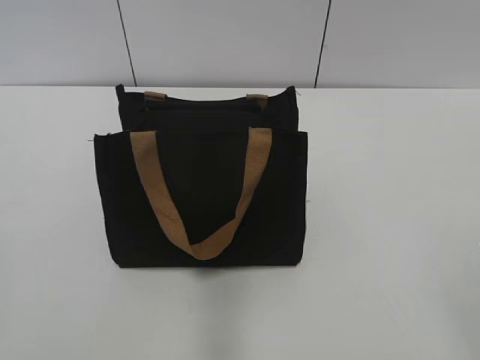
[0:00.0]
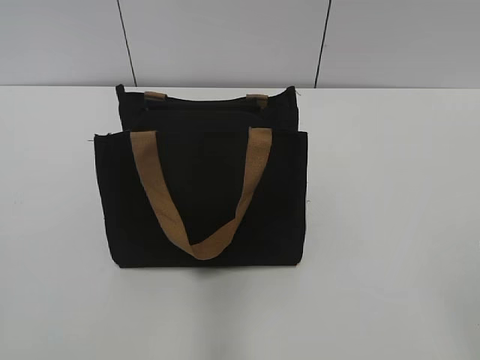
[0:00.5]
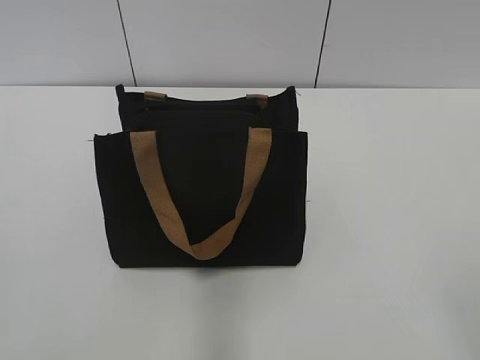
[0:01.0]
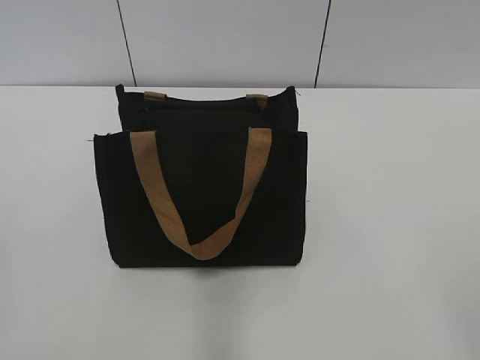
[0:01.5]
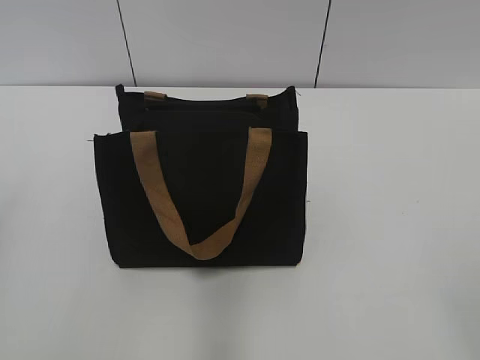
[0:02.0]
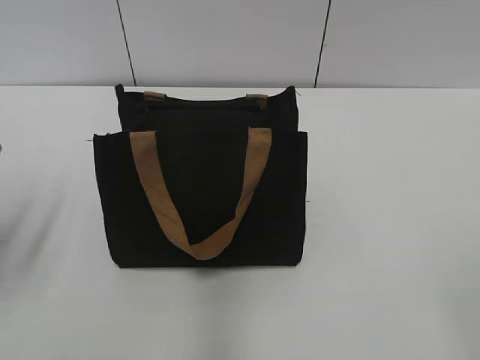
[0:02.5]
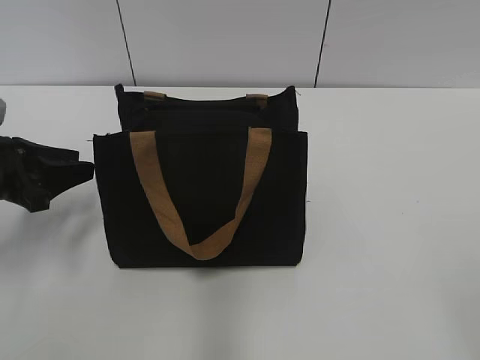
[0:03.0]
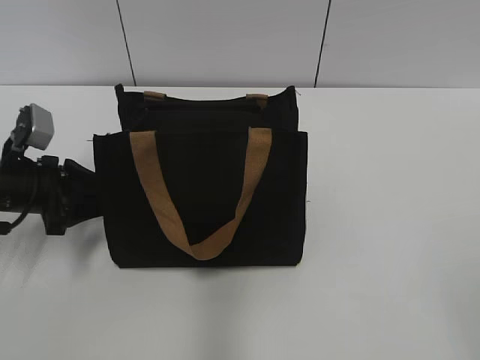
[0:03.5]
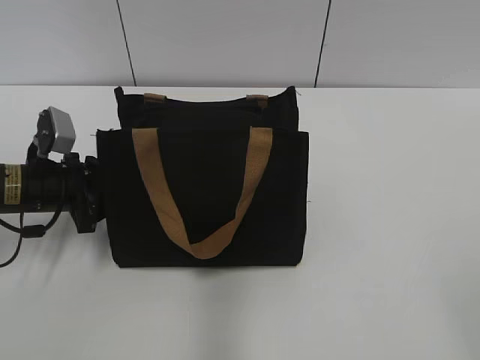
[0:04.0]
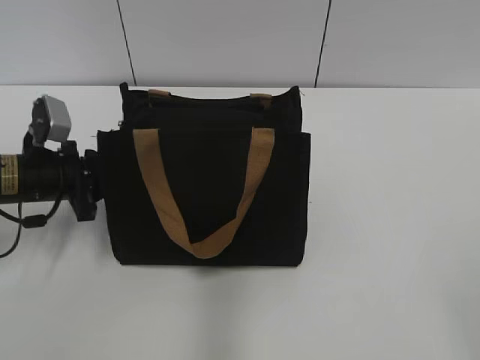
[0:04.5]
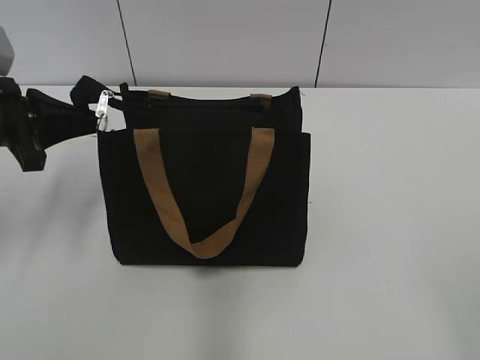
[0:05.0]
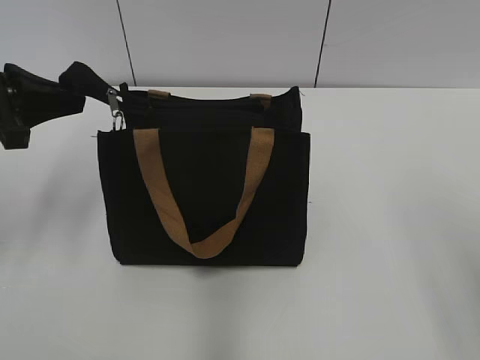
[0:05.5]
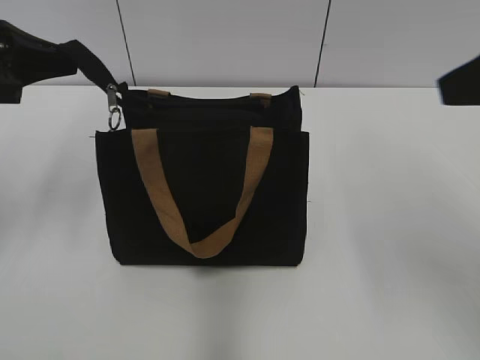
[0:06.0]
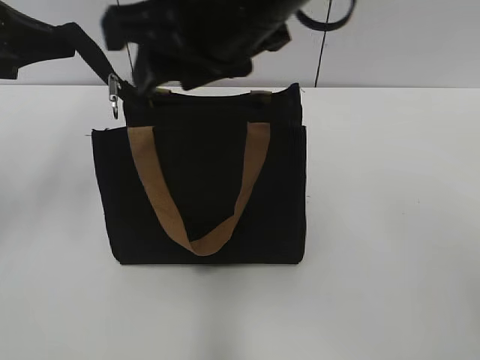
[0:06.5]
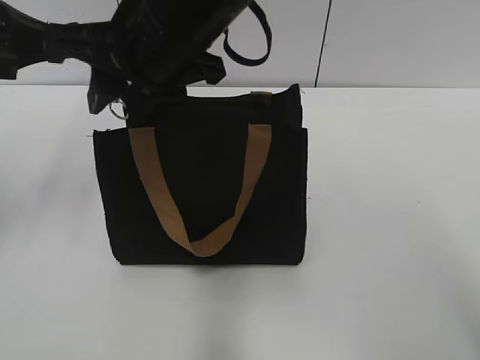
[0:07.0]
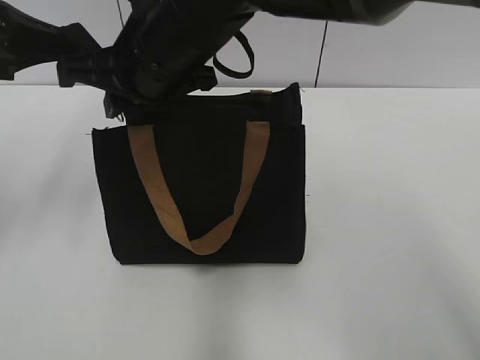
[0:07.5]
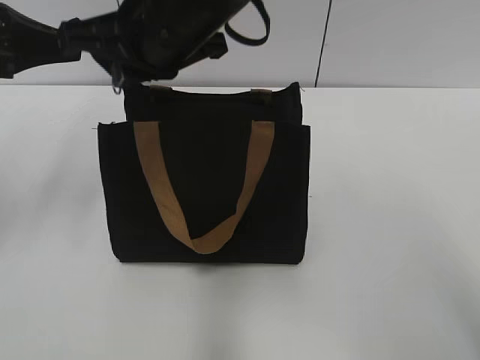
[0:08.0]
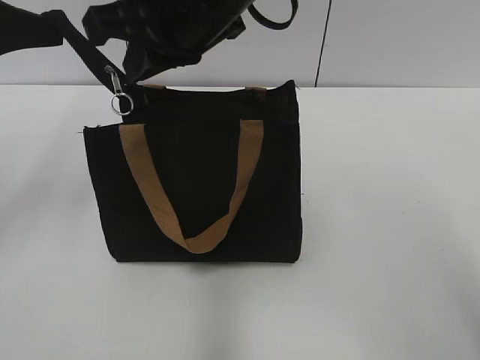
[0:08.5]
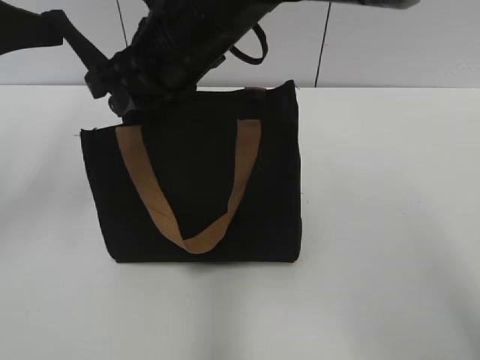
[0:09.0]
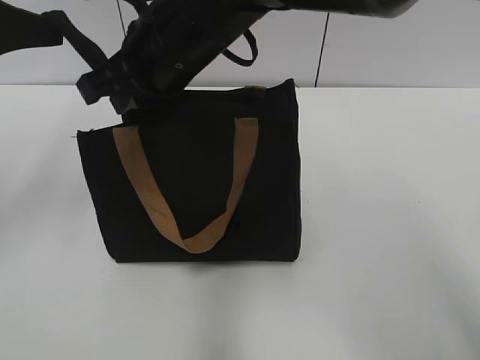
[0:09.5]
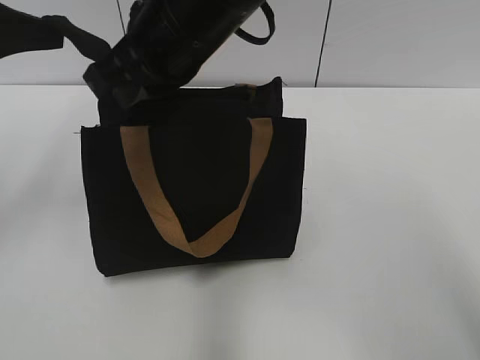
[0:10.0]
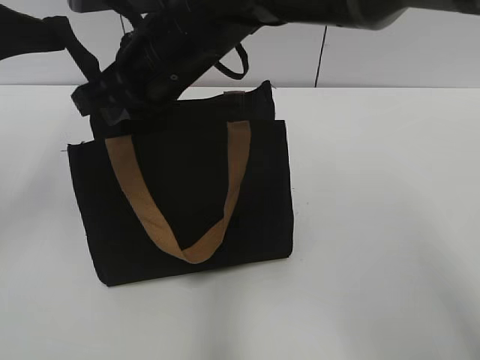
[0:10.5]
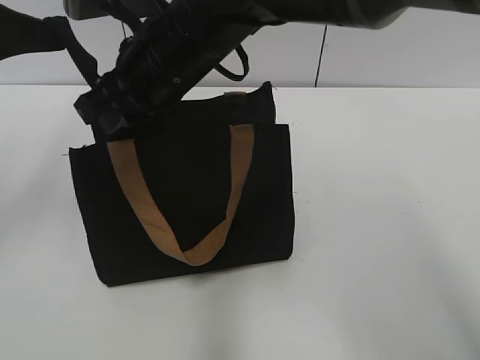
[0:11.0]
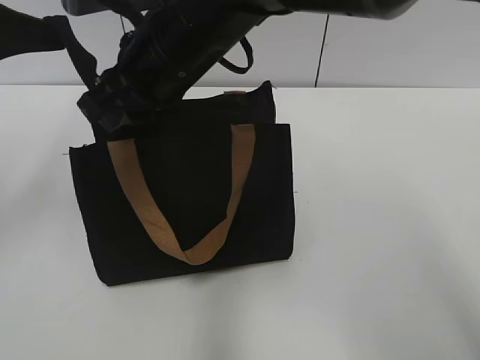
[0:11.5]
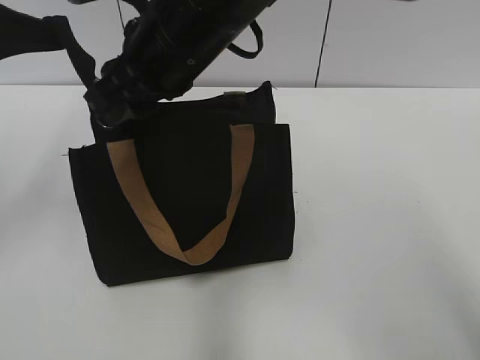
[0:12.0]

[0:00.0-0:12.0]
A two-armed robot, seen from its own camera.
0:02.0 to 0:04.0: The left gripper heads forward and downward, covering about 30 cm.
0:04.0 to 0:06.0: The right gripper is displaced forward and upward by some 20 cm, while the left gripper goes roughly 20 cm upward, and closes.
0:06.0 to 0:08.0: The right gripper moves to the left and forward, approximately 30 cm, and closes.
0:08.0 to 0:10.0: The right gripper opens, then closes once more.
0:10.0 to 0:12.0: The right gripper opens its fingers.

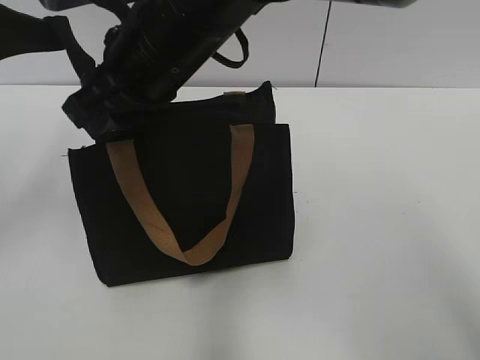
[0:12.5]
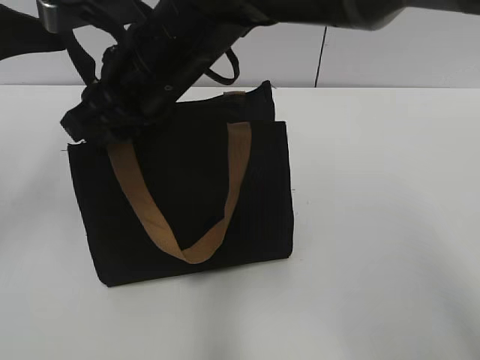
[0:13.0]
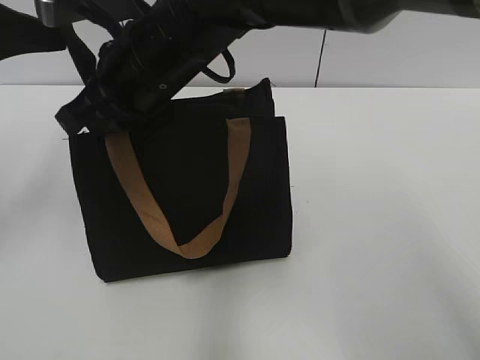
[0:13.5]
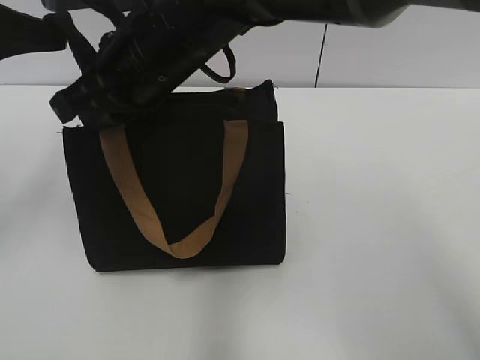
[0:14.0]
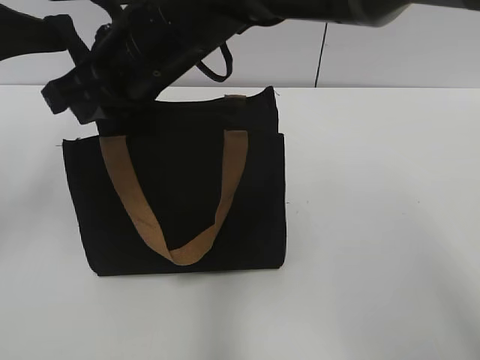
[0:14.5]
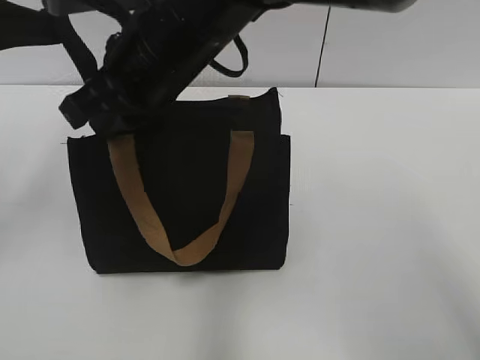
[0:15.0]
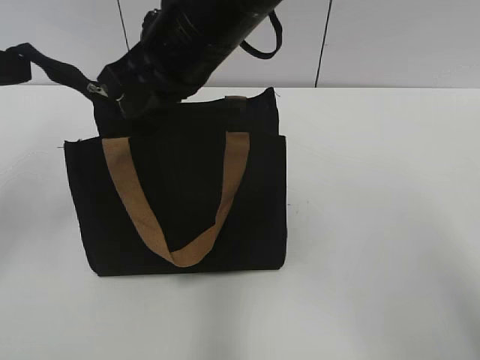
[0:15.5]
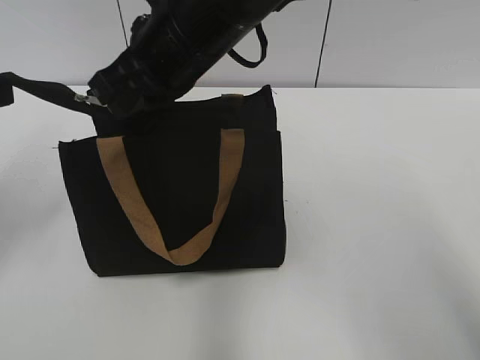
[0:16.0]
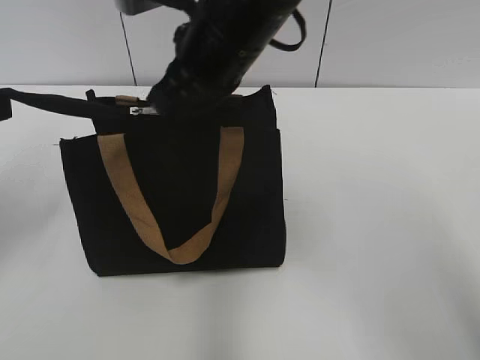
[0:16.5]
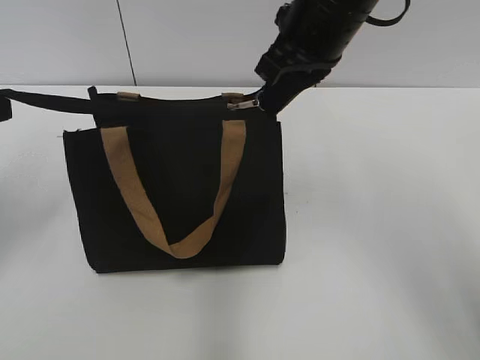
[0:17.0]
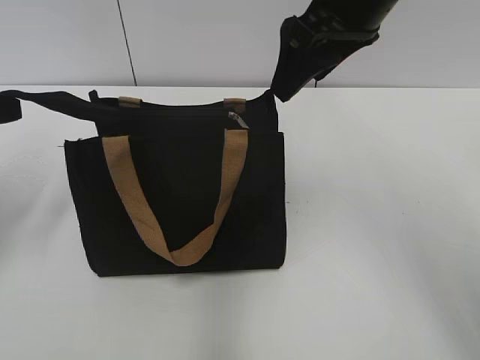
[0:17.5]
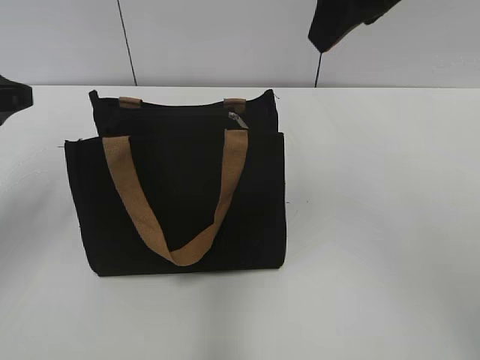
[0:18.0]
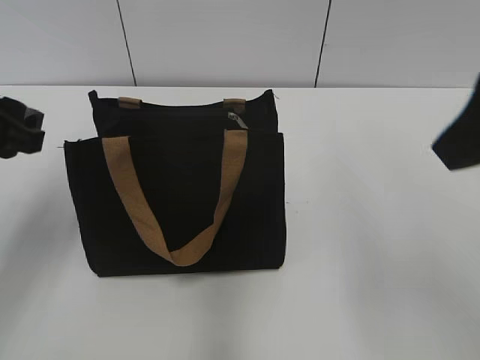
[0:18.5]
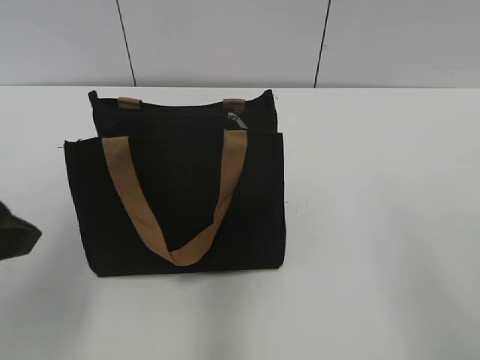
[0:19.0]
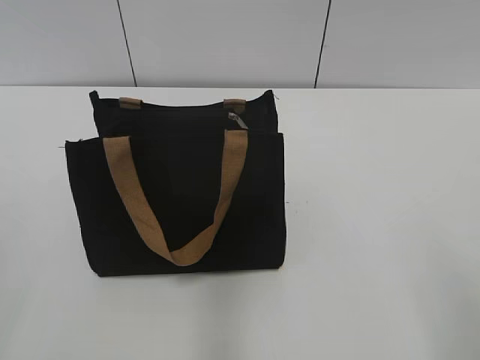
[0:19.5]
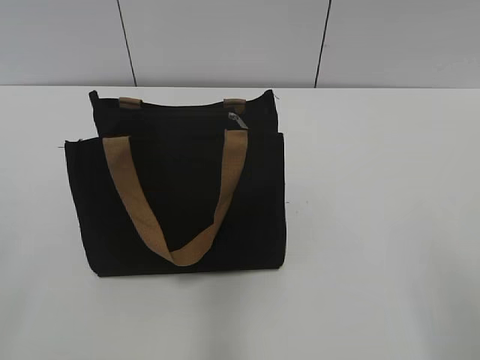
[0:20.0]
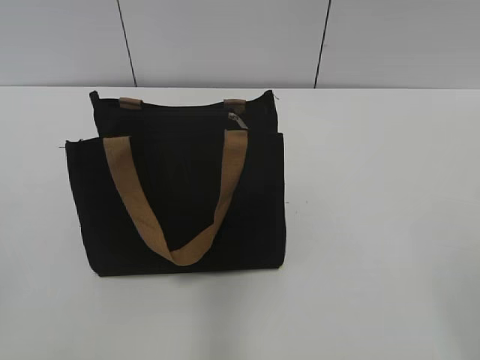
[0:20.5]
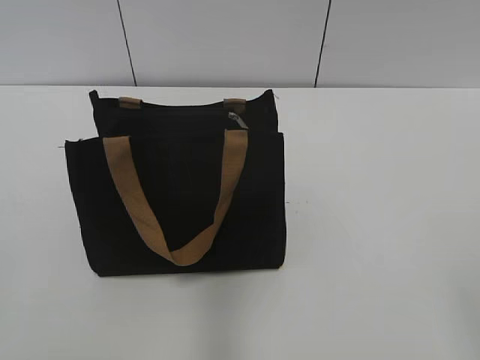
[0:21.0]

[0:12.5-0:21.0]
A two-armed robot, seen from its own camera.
Step, 0:12.5 to 0:17.0: Zip up the bag with your right hand.
0:12.5 to 0:14.5: The right gripper closes.
0:14.5 to 0:16.5: The left gripper changes place by some 10 cm. Meanwhile the right gripper travels to the right by approximately 5 cm.
0:16.5 to 0:19.0: The right gripper travels backward and to the right by roughly 35 cm, and opens up. Meanwhile the left gripper goes approximately 15 cm backward and to the right, and opens up.
0:19.0 to 0:21.0: The left gripper shifts about 20 cm backward and to the left.

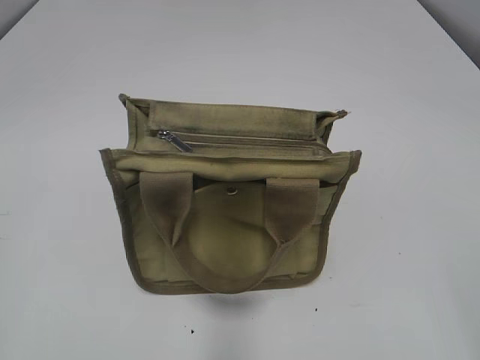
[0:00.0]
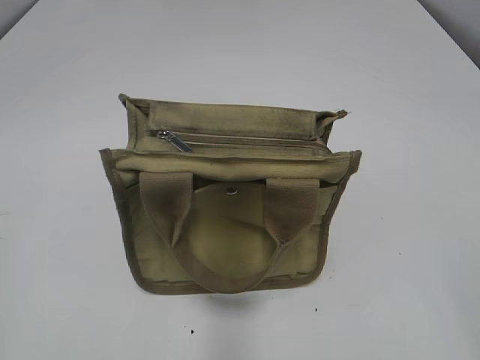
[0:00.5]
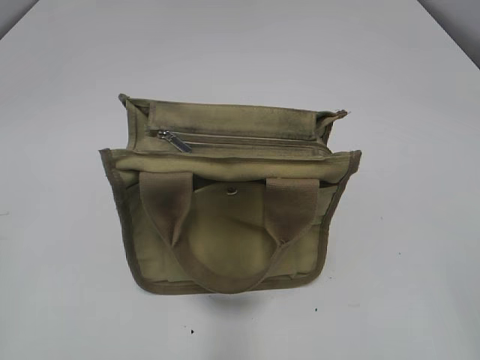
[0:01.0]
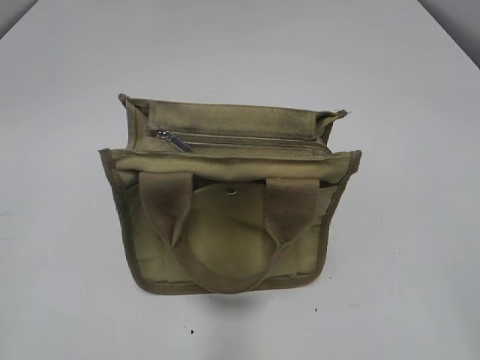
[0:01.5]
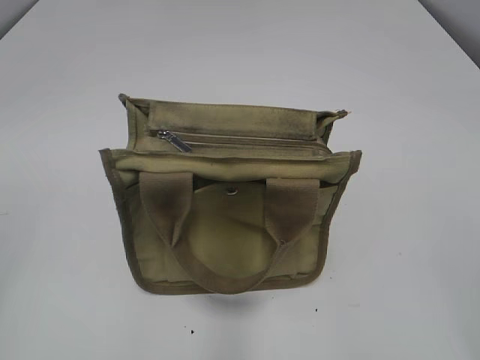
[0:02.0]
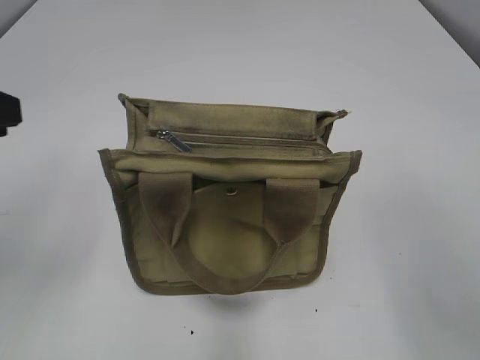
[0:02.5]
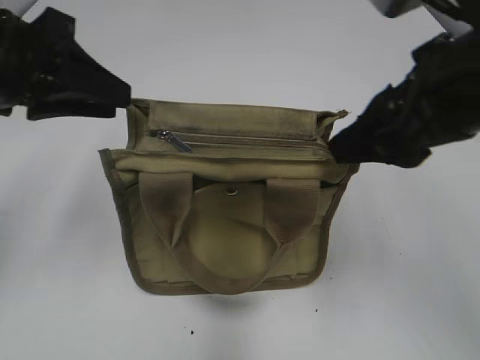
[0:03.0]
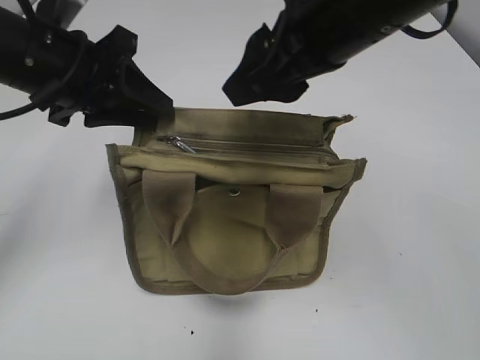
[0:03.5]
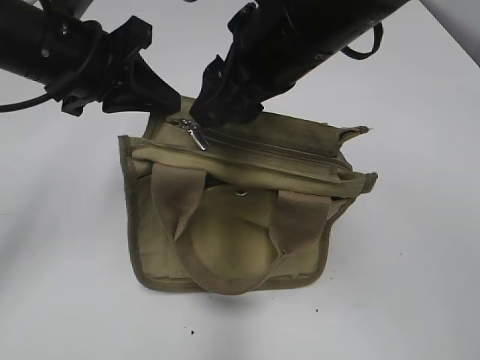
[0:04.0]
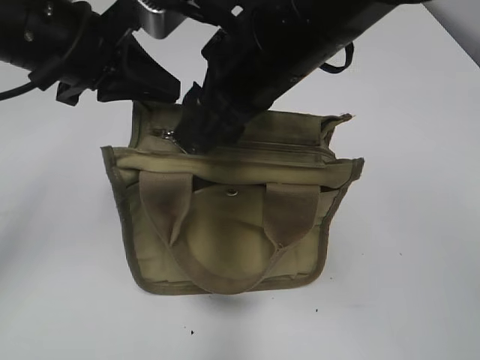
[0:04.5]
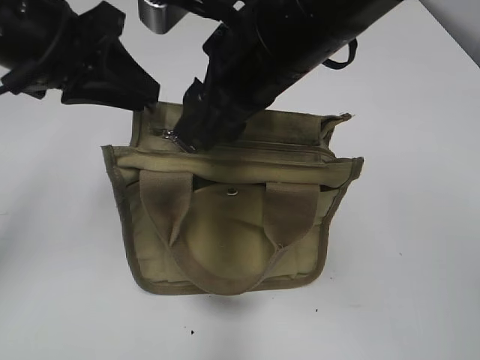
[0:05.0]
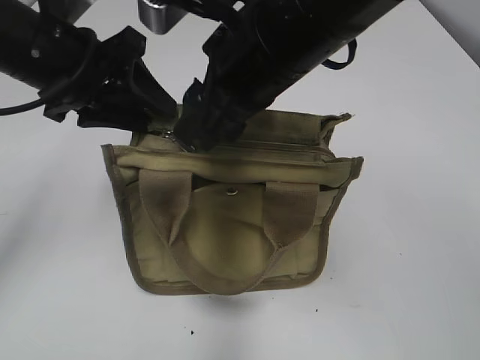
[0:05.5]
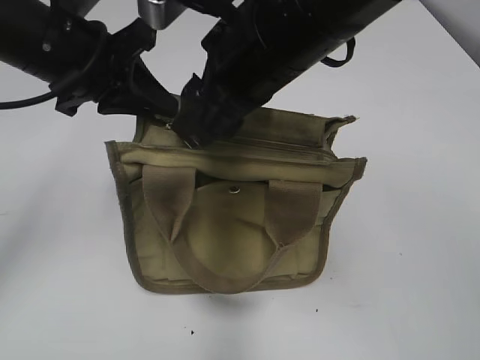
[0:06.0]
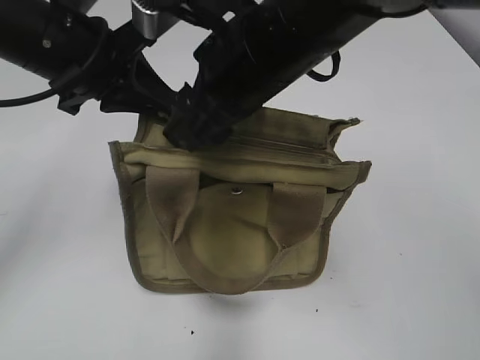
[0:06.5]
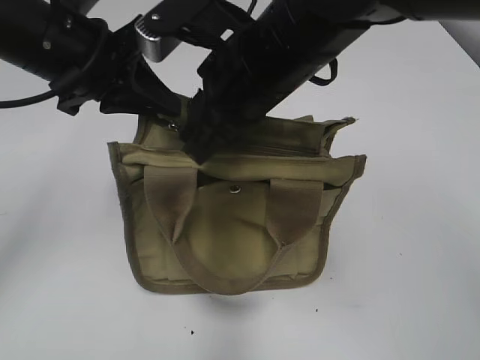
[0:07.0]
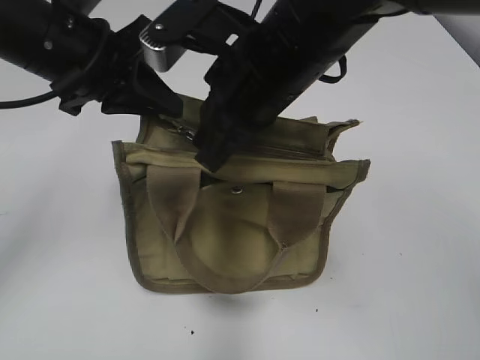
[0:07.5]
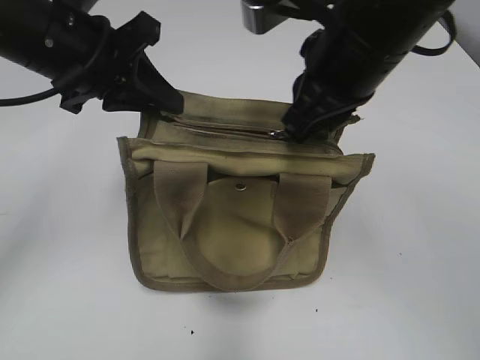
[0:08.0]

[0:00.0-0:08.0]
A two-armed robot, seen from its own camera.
0:02.0 to 0:04.0: The left gripper heads forward and to the right, covering about 30 cm, and closes up; the right gripper goes some 35 cm forward and to the left.
0:04.0 to 0:06.0: The left gripper opens, then closes once more.
0:06.0 to 0:08.0: The right gripper closes its fingers.
